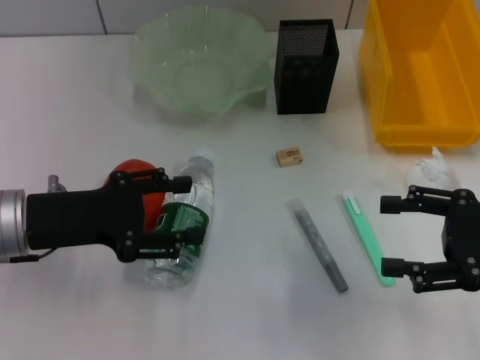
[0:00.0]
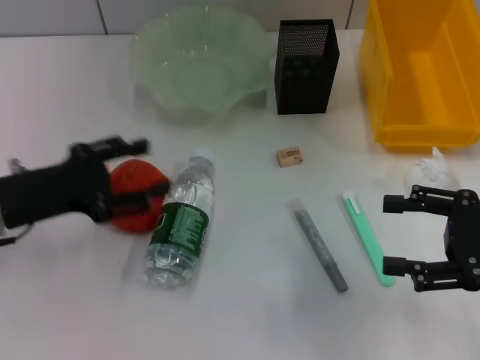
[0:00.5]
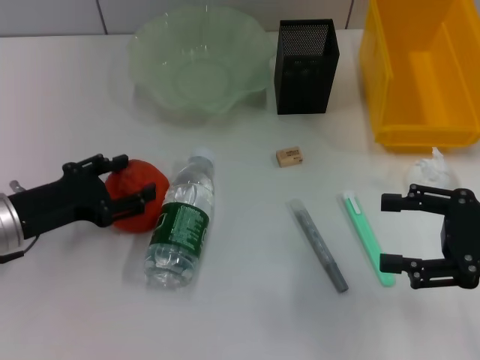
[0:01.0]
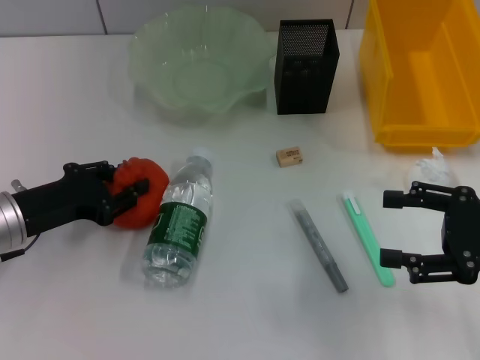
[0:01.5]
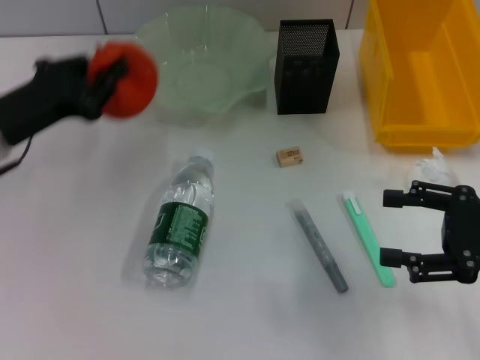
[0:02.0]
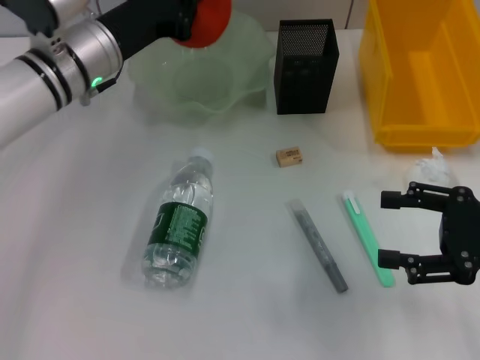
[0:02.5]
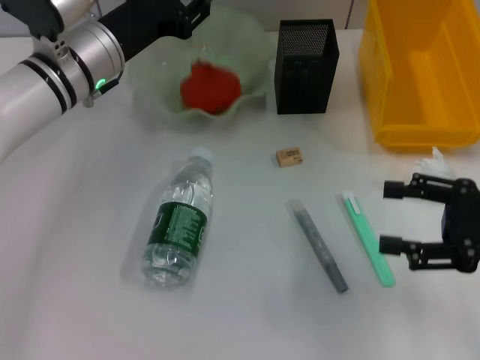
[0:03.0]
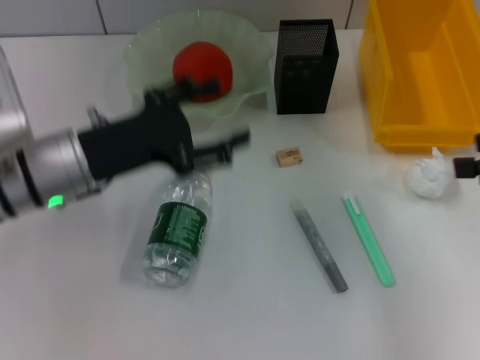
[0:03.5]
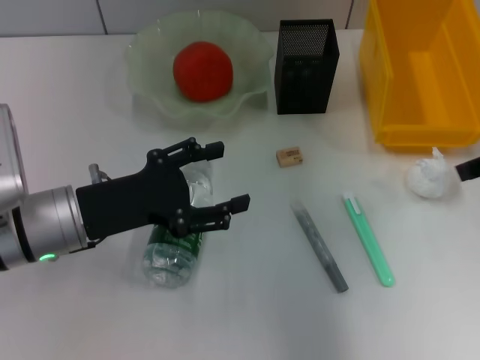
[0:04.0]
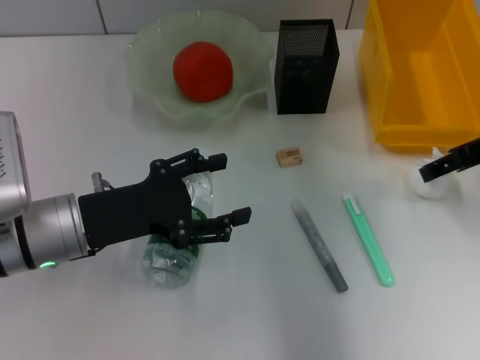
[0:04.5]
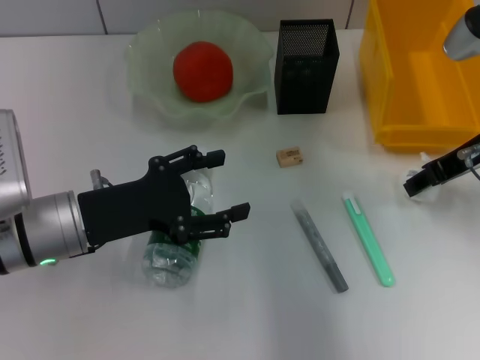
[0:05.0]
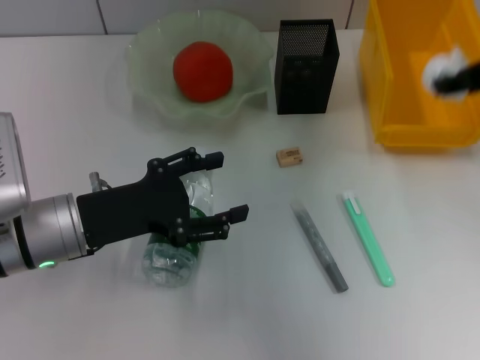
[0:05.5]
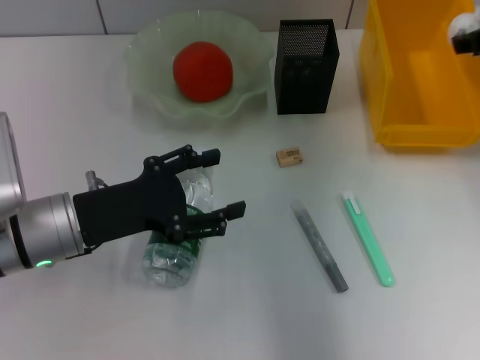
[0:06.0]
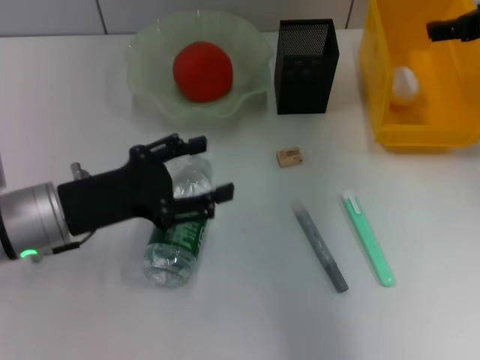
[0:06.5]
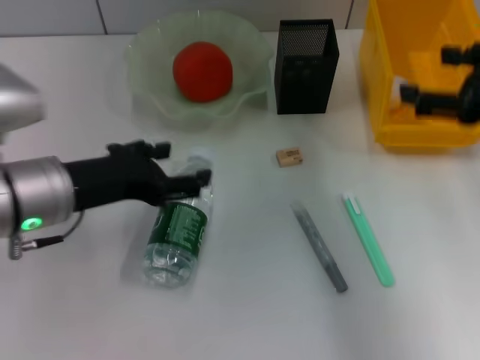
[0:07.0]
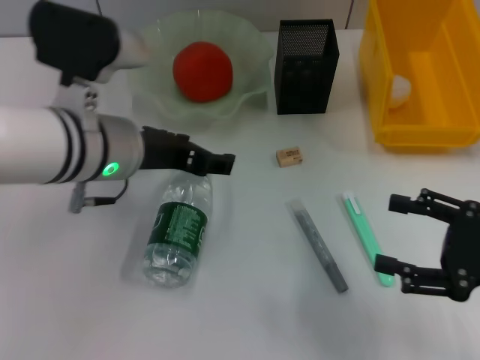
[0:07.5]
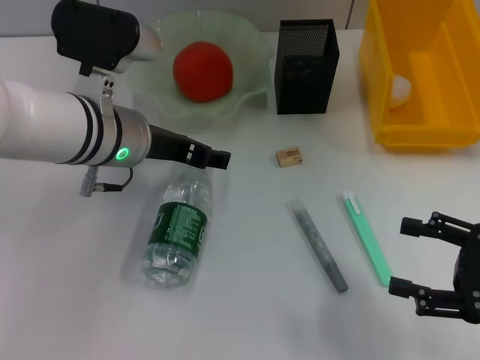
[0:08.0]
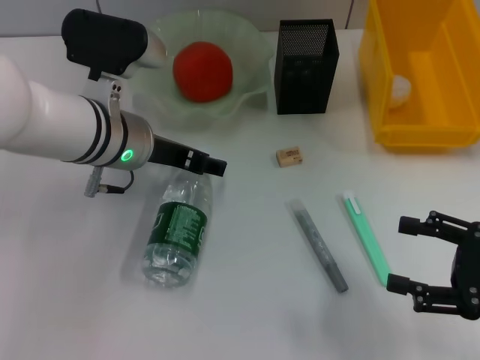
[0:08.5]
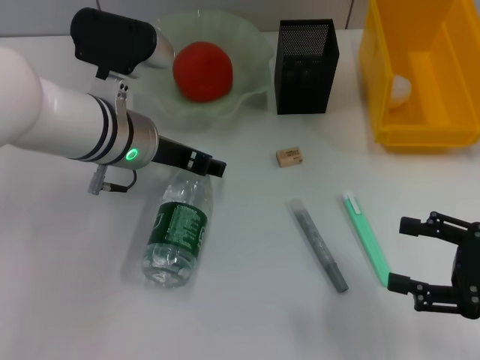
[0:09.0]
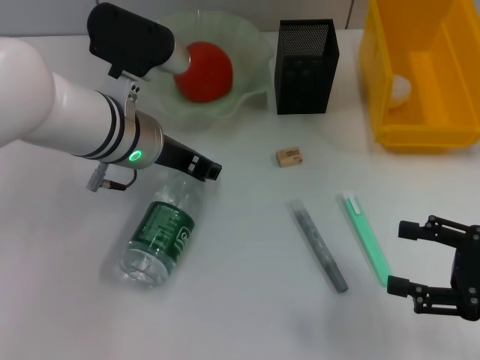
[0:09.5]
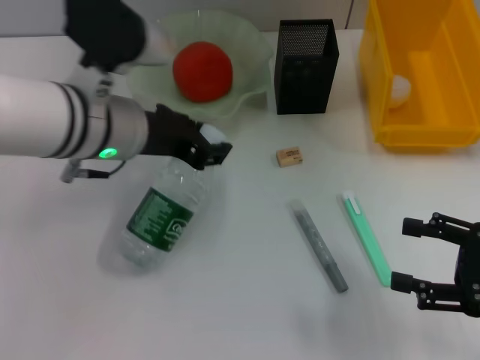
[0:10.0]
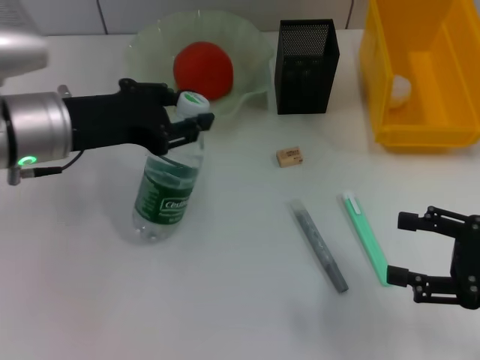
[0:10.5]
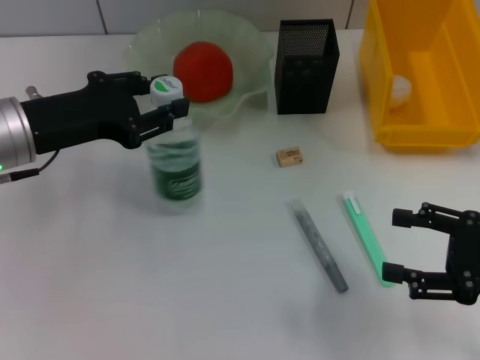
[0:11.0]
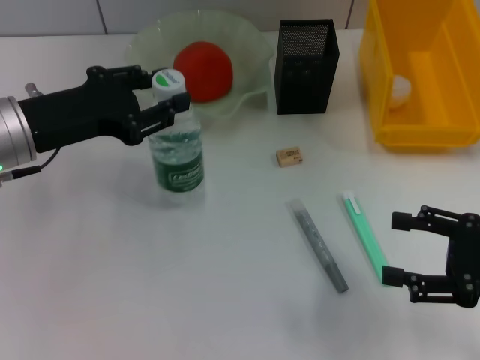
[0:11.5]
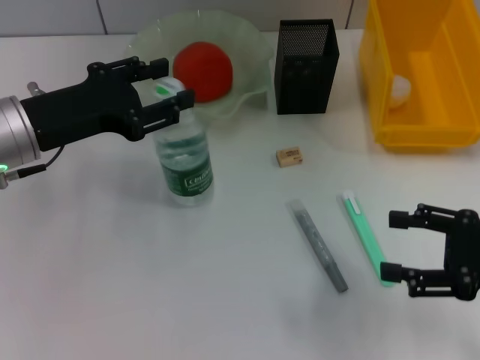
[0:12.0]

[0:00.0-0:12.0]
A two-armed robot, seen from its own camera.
Step, 0:00.0 to 0:01.0: Grab the orange with the left hand.
Step, 0:02.0 to 0:02.5: Place the orange into the fruit bowl with the left hand.
Step, 0:03.0 to 0:04.5: Grab the paper ball with the right hand.
Step, 0:05.0 to 0:06.0: Place the paper ball into the trash can with the right hand.
Step, 0:06.5 to 0:09.0: Grab the water bottle with the left hand.
0:00.0 to 0:02.0: The left gripper goes some 5 cm forward, and closes up.
0:02.0 to 0:04.0: The right gripper moves upward and forward, some 15 cm, while the left gripper travels to the right and backward by some 10 cm, and opens up.
0:04.0 to 0:06.0: The right gripper goes up and down, roughly 10 cm each way, reversing 2 times, and closes.
0:06.0 to 0:08.0: The left gripper heads to the right, forward and upward, covering approximately 10 cm. Meanwhile the right gripper is displaced backward and downward by approximately 25 cm, and opens up.
0:08.0 to 0:10.0: The left gripper closes.
0:10.0 to 0:12.0: The left gripper shifts roughly 10 cm to the left.

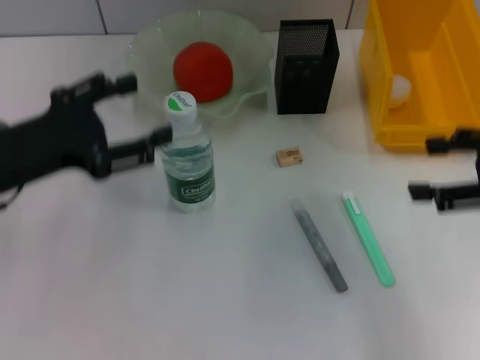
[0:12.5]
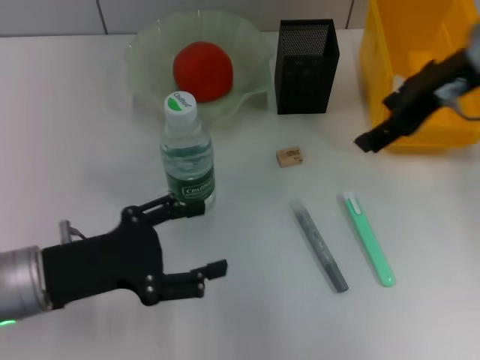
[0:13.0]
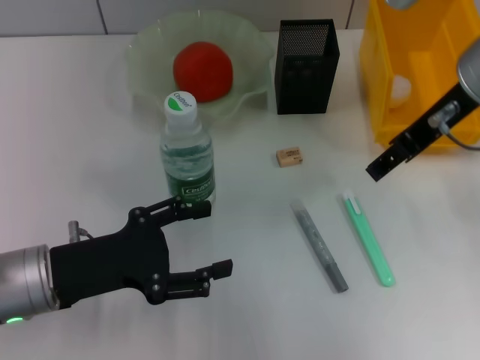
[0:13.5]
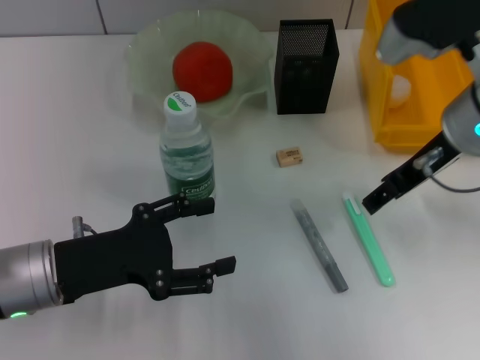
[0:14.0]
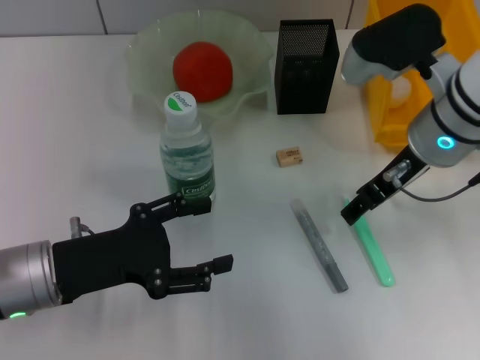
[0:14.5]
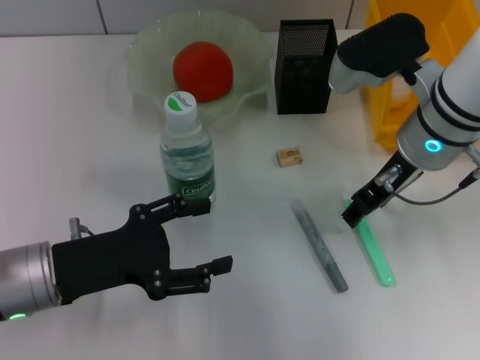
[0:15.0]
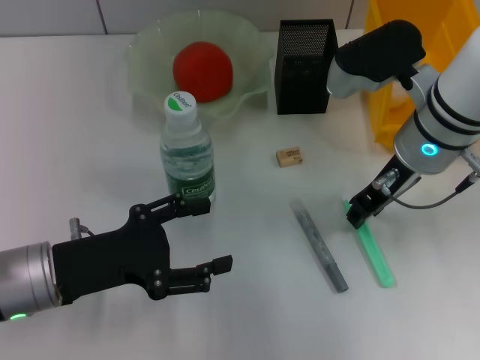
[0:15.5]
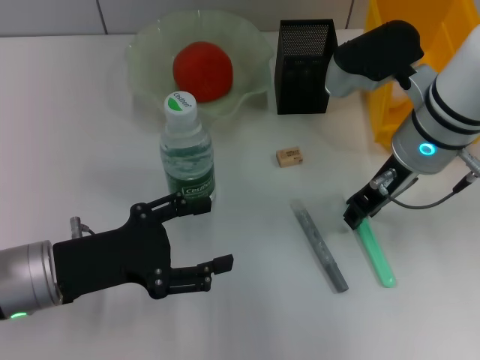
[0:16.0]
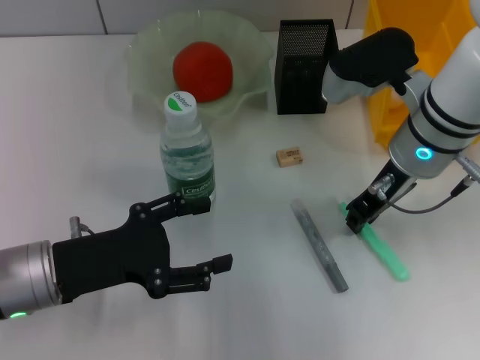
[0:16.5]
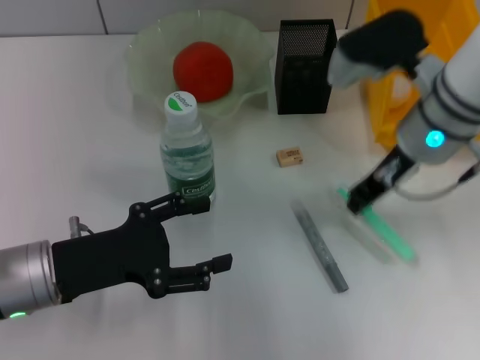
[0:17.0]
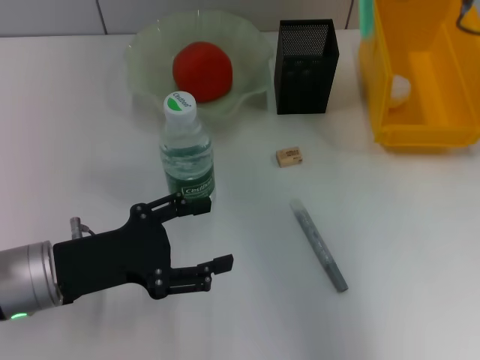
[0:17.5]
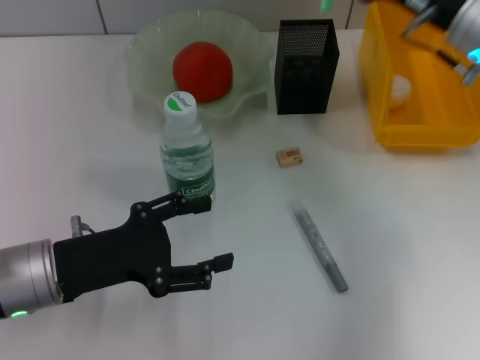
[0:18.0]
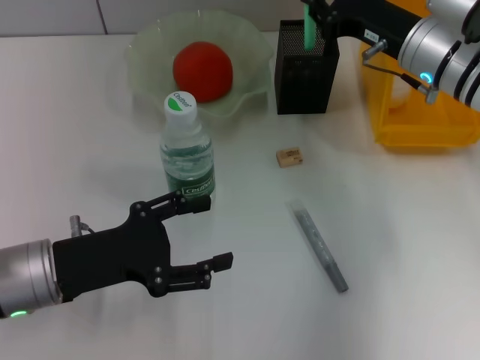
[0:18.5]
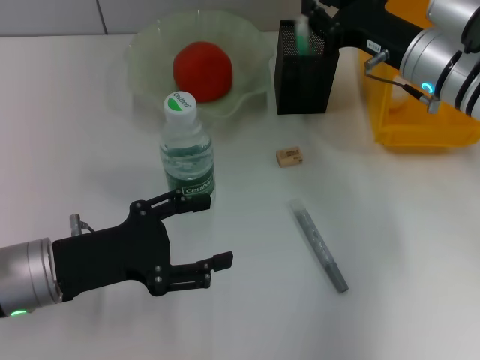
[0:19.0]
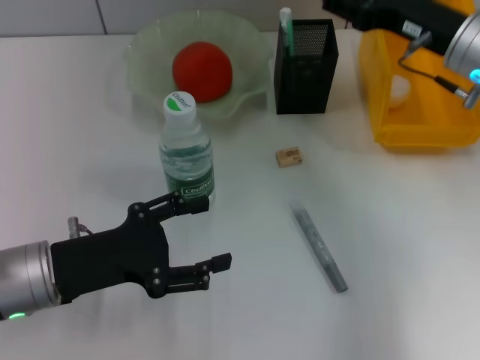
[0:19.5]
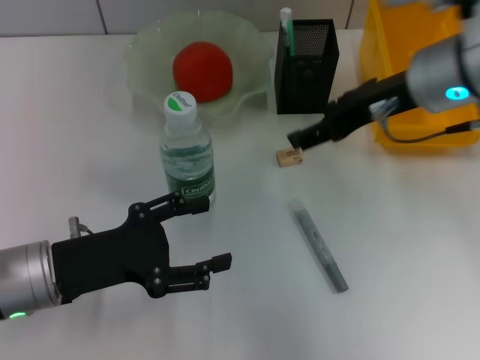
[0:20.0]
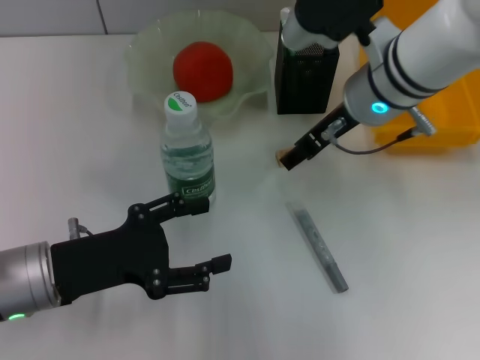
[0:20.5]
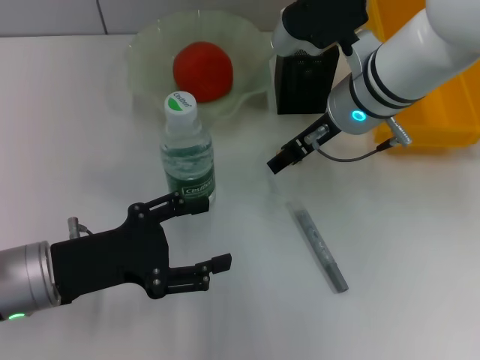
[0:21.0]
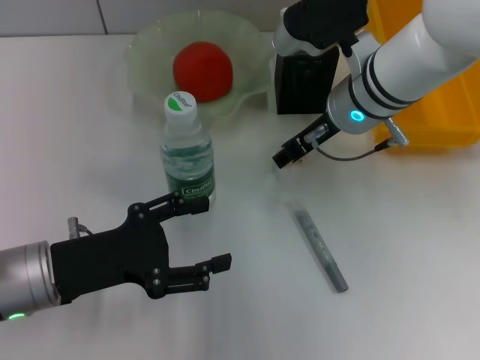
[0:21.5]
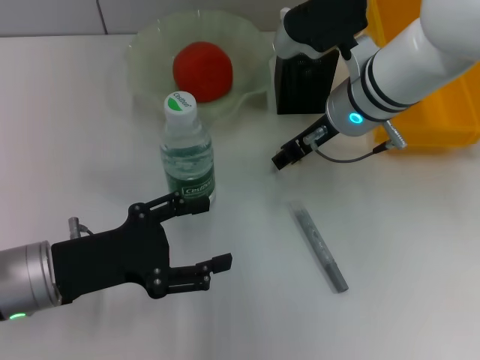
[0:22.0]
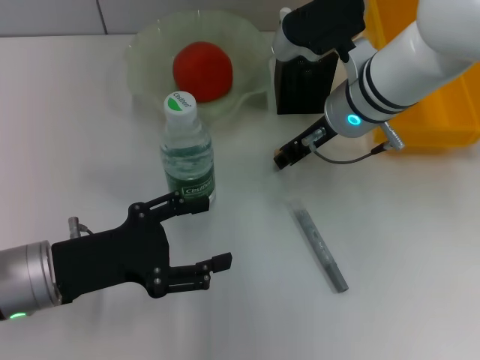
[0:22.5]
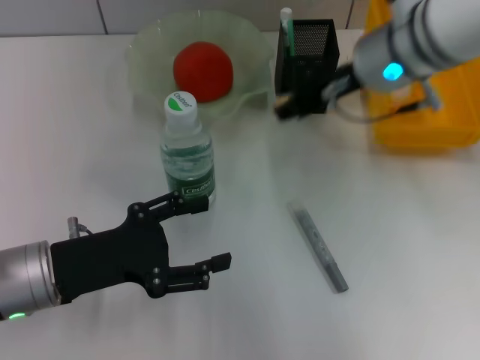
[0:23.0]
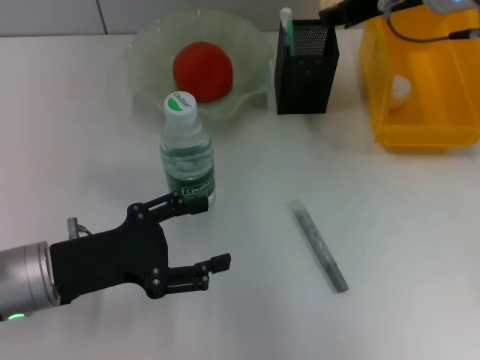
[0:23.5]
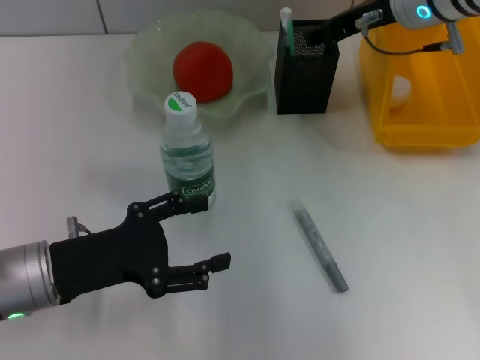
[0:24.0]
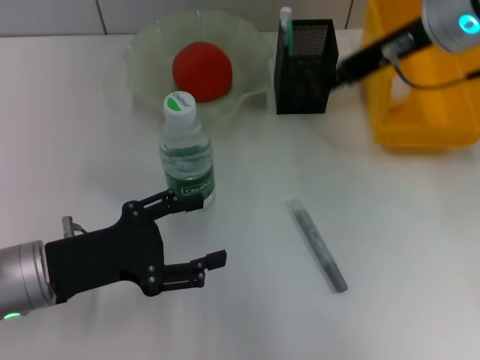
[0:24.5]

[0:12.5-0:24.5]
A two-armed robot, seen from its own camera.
Step, 0:12.5 to 0:16.5: Grab the blue utility knife with the right hand.
Step, 0:17.0 to 0:19.0: Place the blue utility knife into the pen holder with the right hand.
Step, 0:19.5 to 0:22.0: Grab the eraser with the right hand.
Step, 0:23.0 to 0:23.5: Put the eraser into the pen holder with the right hand.
0:12.5 to 0:14.5: The left gripper shifts about 10 cm downward and backward, while the right gripper heads to the left and forward, covering approximately 15 cm.
0:14.5 to 0:16.5: The right gripper closes.
0:16.5 to 0:18.5: The right gripper goes some 5 cm forward, and reaches approximately 10 cm upward, then returns.
0:18.5 to 0:20.5: The right gripper shifts approximately 10 cm to the left, and opens its fingers.
0:20.5 to 0:22.5: The right gripper closes its fingers.
0:22.5 to 0:24.5: The right gripper heads upward and to the right, covering some 15 cm, and opens up.

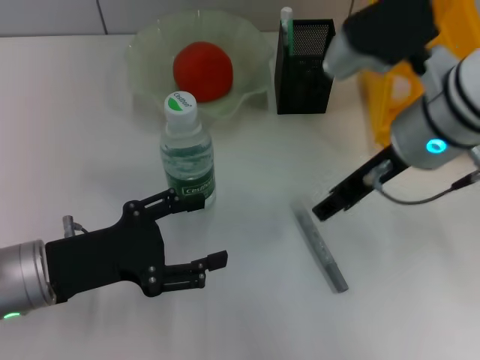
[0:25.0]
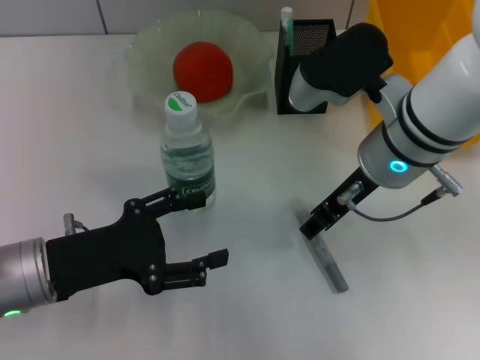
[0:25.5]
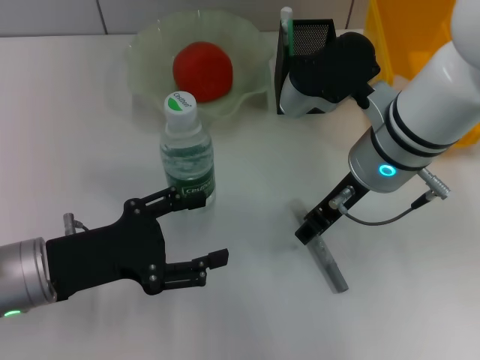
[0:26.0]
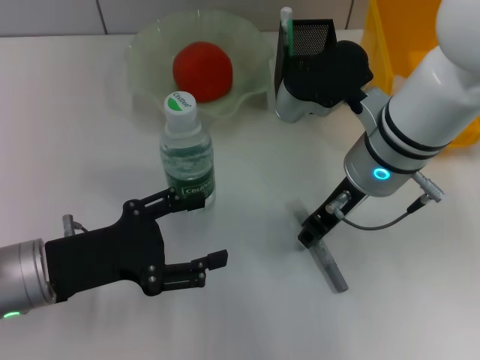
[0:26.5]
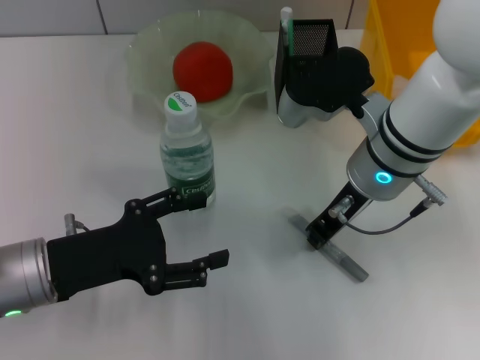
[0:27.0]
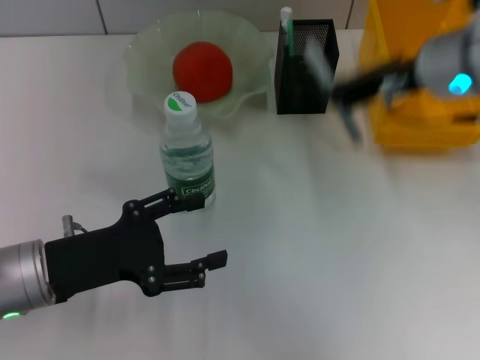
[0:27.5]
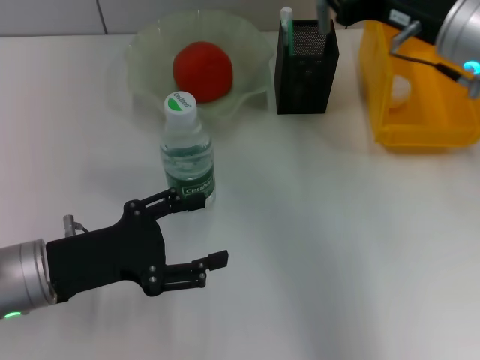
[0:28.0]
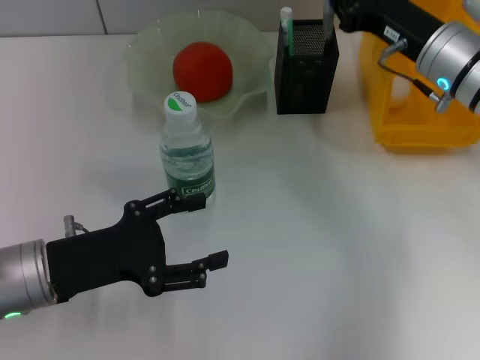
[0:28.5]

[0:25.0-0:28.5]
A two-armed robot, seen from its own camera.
Step, 0:25.0 to 0:26.5: Grab the gray glue with the right hand.
0:25.0 to 0:27.0: The right gripper ends up roughly 5 cm from where it was, and closes up.
0:27.0 to 0:28.5: The right gripper goes roughly 10 cm to the right and forward.
